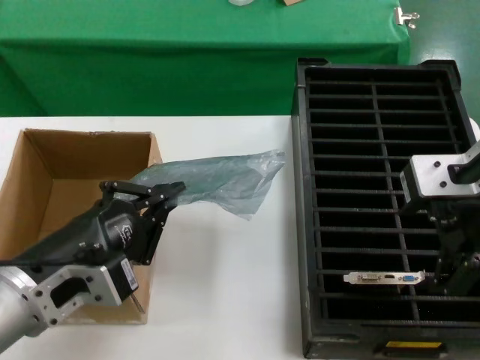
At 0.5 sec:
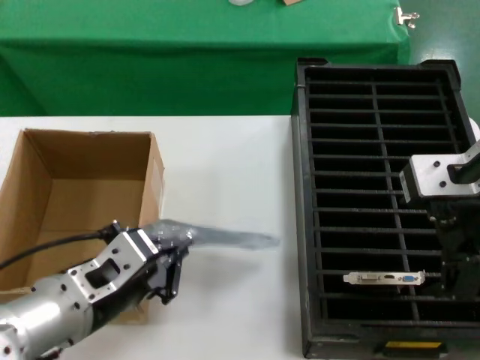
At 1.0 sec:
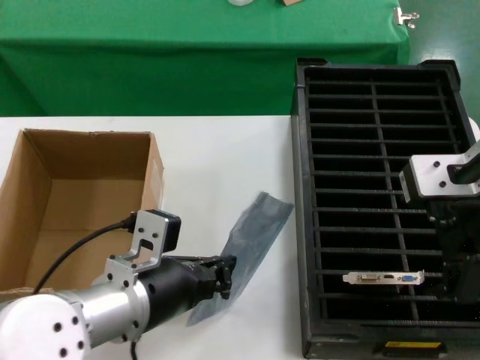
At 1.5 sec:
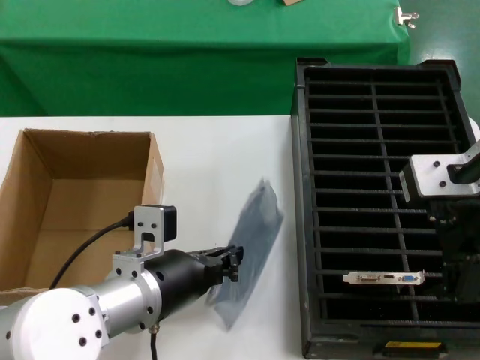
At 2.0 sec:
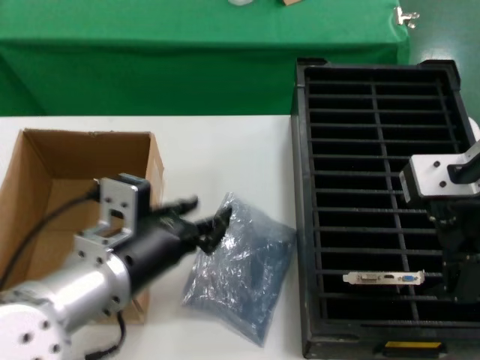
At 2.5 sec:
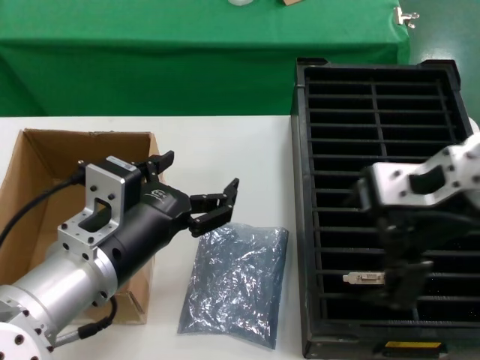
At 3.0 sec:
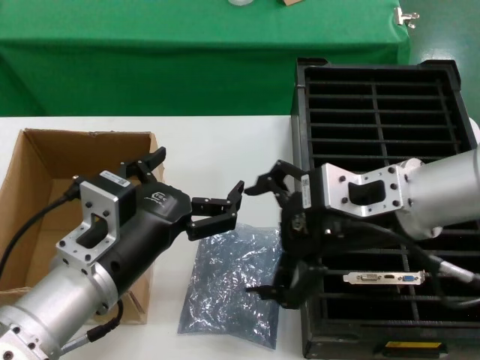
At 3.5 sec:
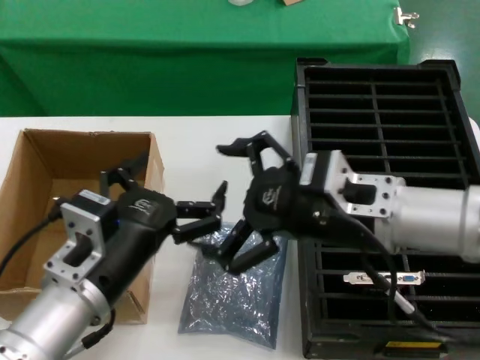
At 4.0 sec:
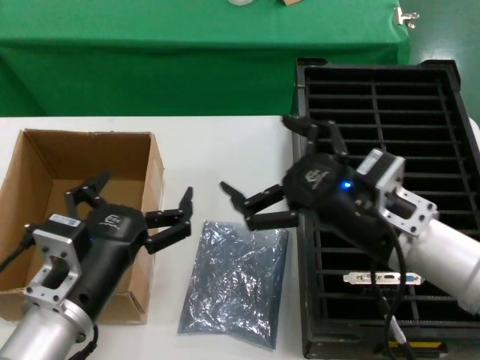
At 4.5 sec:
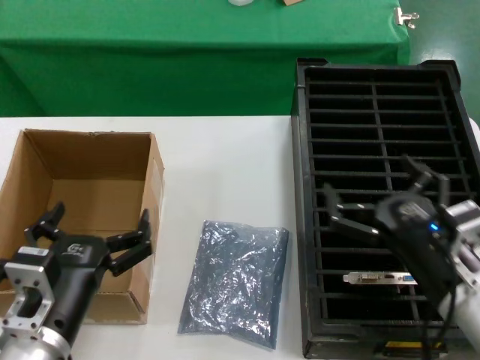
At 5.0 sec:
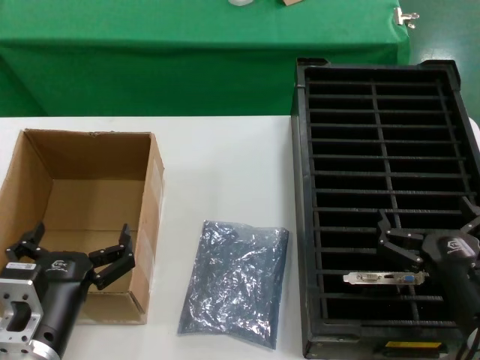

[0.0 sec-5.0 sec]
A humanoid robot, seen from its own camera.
Task of the whole recording: take out graphics card from box remove packaging put into black container.
Step, 0.0 sec to 2.0 sec: Place the down the bag.
0.0 sec to 2.5 sec: The left hand is displaced to the right by some 5 cm.
2.5 sec to 5.0 sec: The right hand moves downward, about 30 cm. The left hand travels downward by roughly 15 cm.

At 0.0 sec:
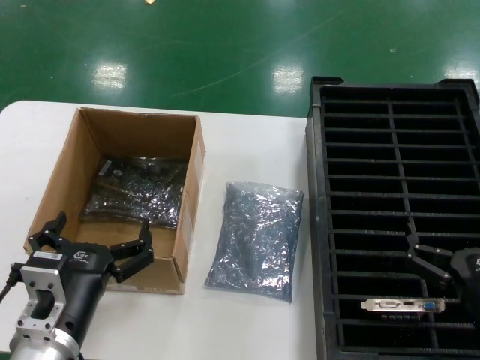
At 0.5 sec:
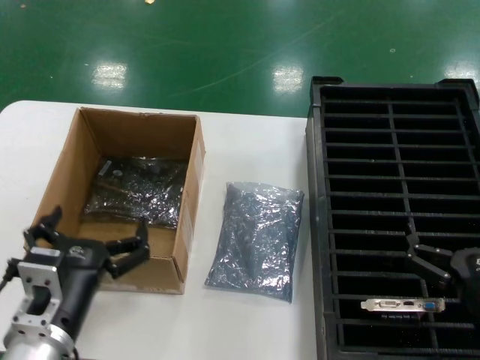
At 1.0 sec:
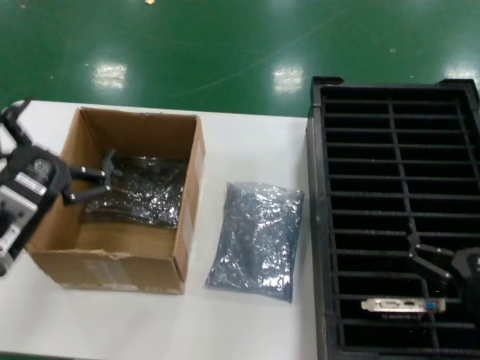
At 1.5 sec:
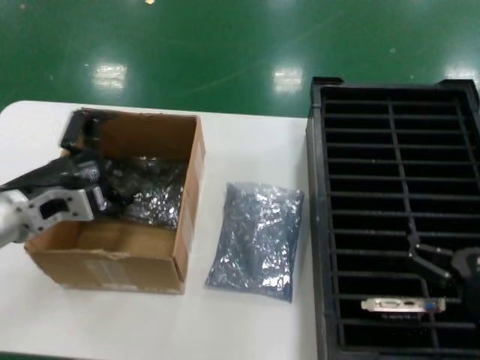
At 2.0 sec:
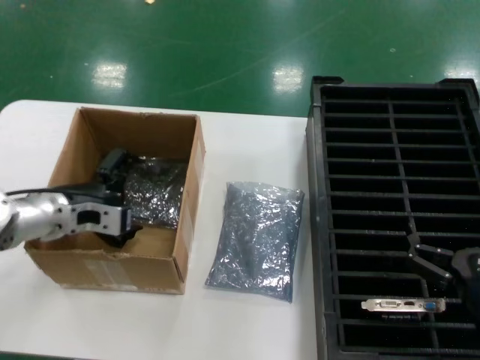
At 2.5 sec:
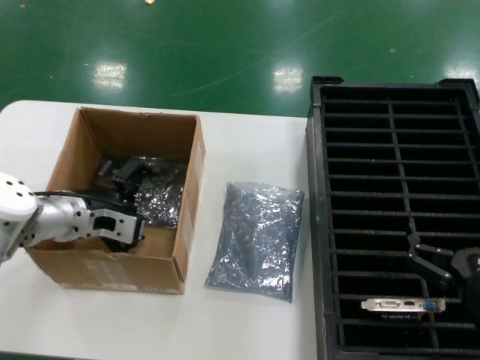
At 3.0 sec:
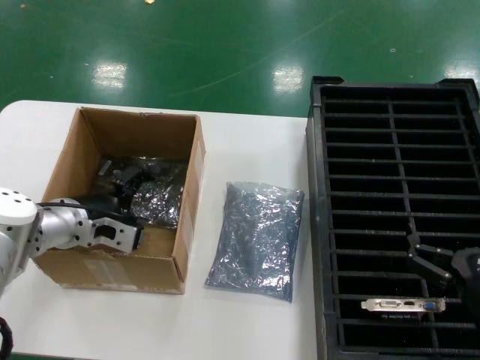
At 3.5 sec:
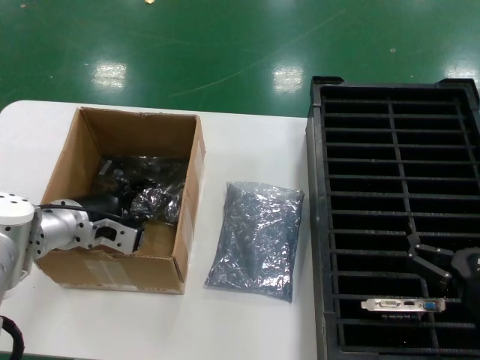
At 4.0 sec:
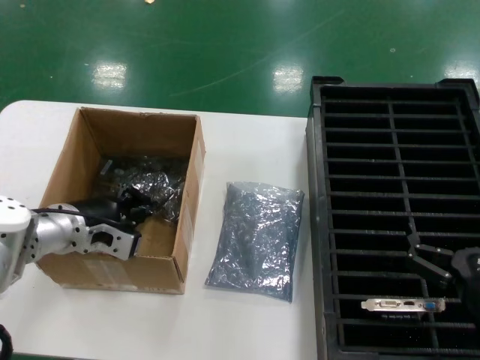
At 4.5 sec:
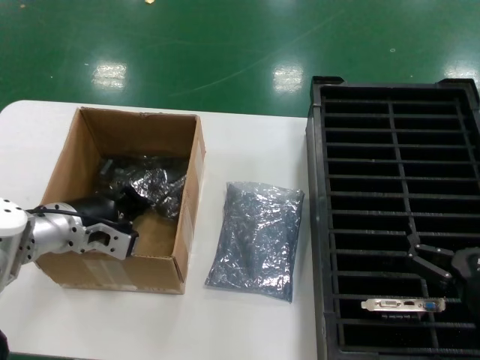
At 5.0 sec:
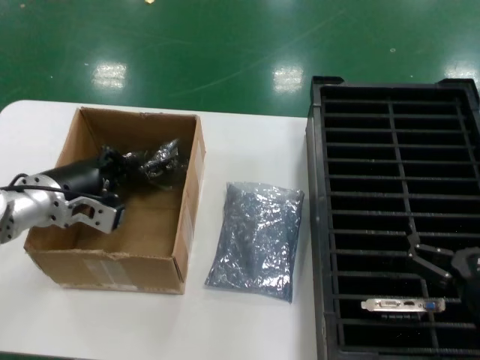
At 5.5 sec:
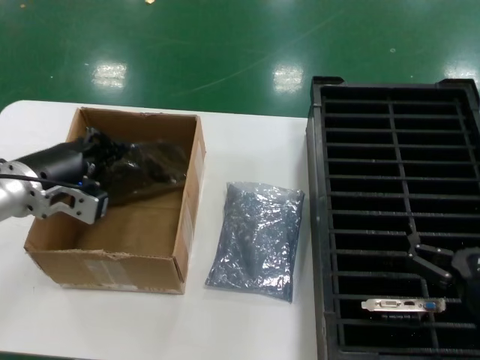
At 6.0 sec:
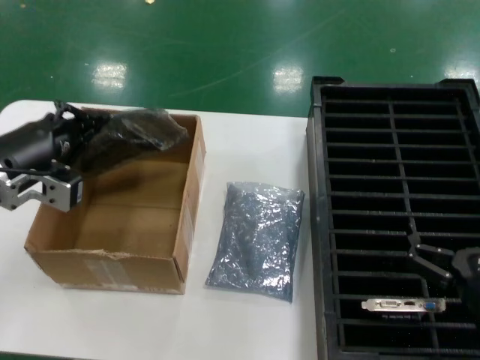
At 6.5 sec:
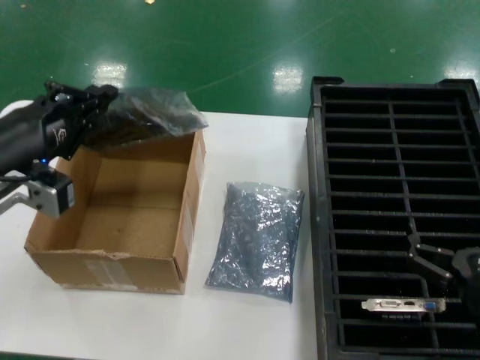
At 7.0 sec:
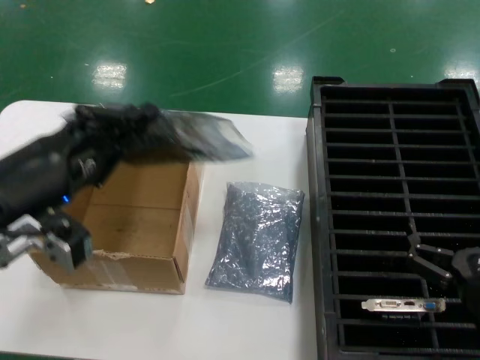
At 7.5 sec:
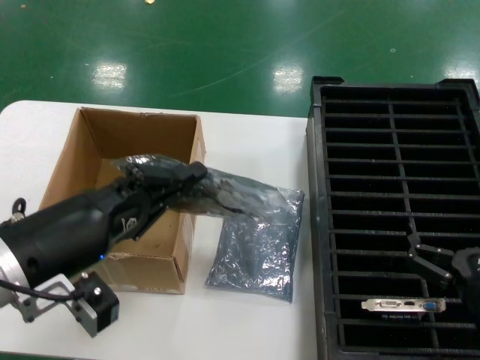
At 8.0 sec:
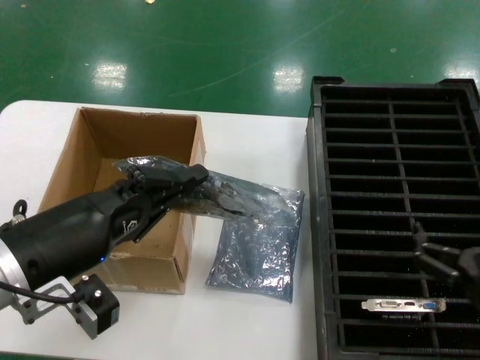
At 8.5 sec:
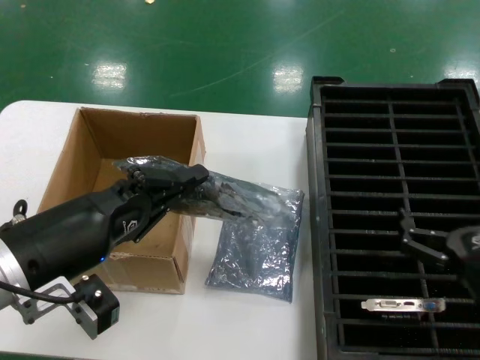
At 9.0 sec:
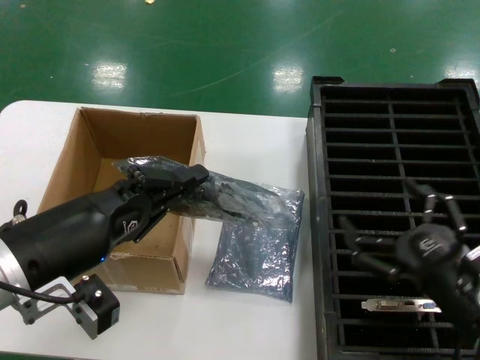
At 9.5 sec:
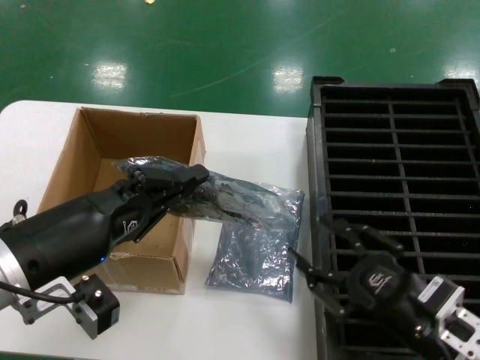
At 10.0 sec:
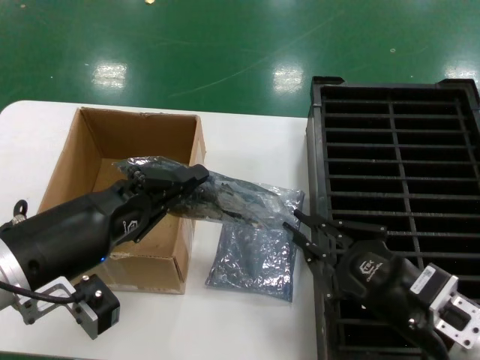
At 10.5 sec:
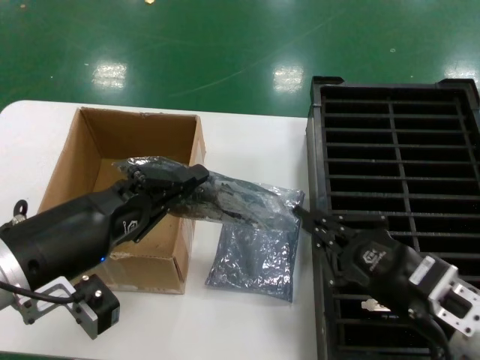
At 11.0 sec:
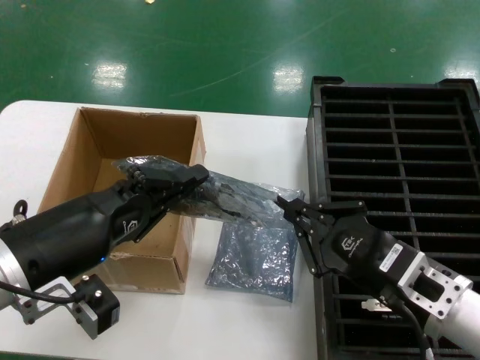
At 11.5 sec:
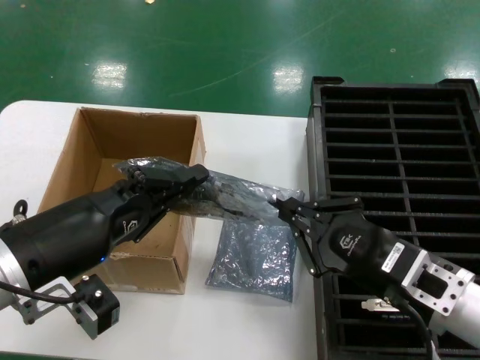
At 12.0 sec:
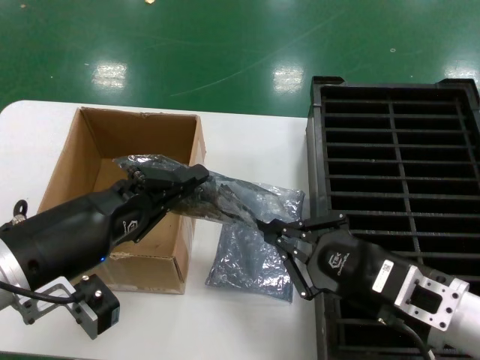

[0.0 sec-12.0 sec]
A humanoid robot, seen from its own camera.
Task of the whole recording: take out graphics card from box remove packaging put into black container.
Step, 0.0 sec to 4.0 sec: Grasp the bag.
Step, 4.5 sec to 7.5 sec: Lift the bag.
0.0 sec to 2.0 sec: The left hand is displaced forward, to the left and upward by some 25 cm.
2.0 sec to 4.0 sec: There are only small adjustments of the hands.
4.0 sec to 6.0 sec: The left hand heads upward and backward, covering about 15 cm.
6.0 sec to 8.0 sec: The left hand travels backward and to the right by approximately 15 cm.
8.0 sec to 10.0 sec: The right hand moves approximately 5 cm.
10.0 sec to 12.0 sec: The hands move only a little.

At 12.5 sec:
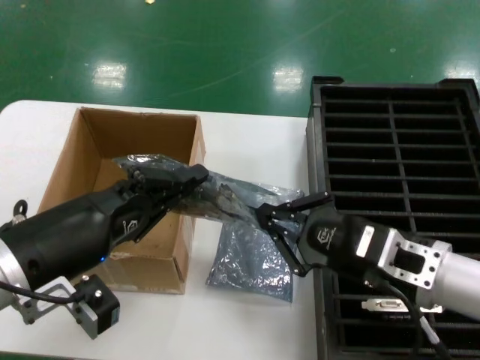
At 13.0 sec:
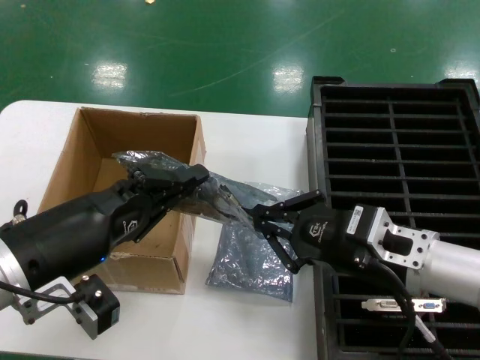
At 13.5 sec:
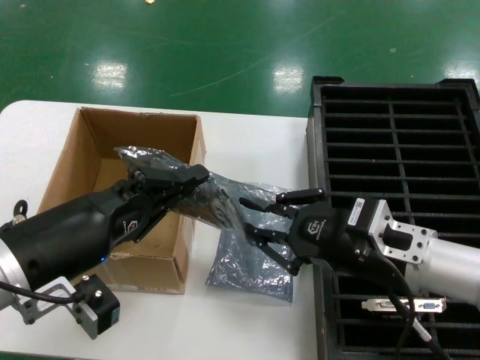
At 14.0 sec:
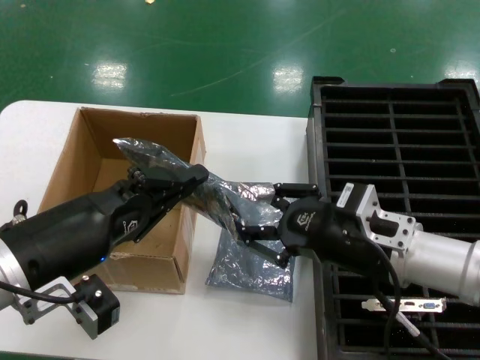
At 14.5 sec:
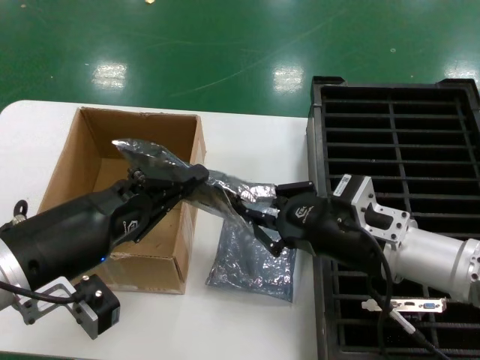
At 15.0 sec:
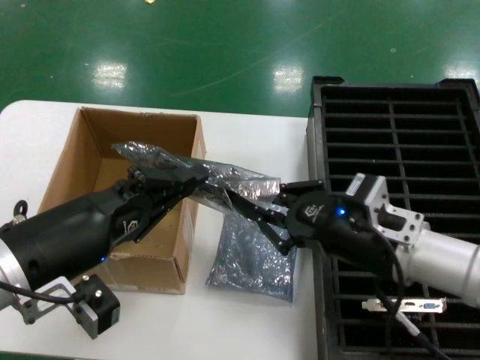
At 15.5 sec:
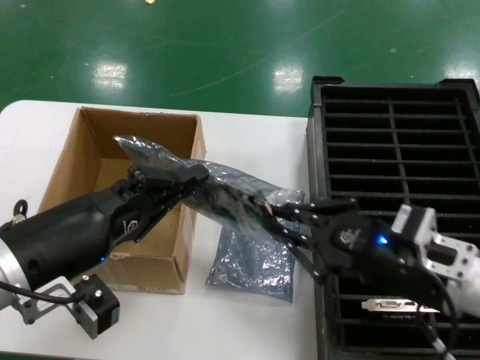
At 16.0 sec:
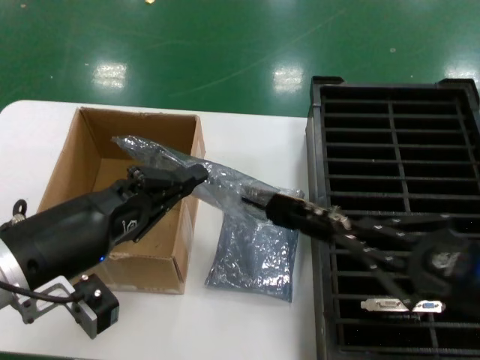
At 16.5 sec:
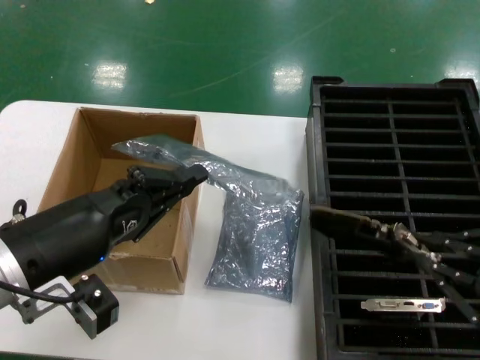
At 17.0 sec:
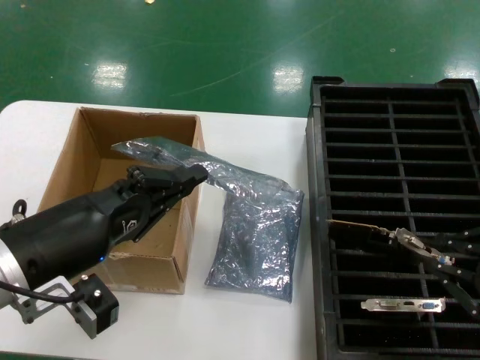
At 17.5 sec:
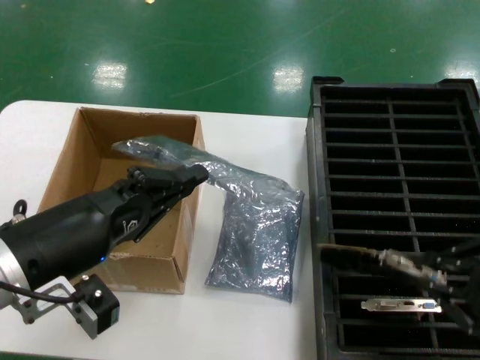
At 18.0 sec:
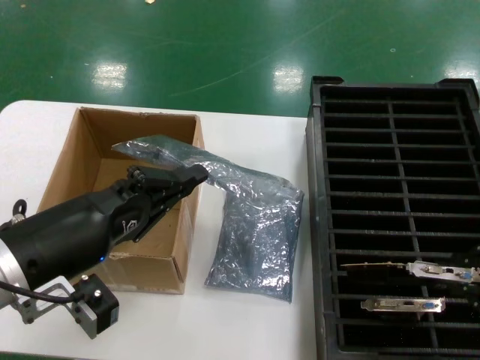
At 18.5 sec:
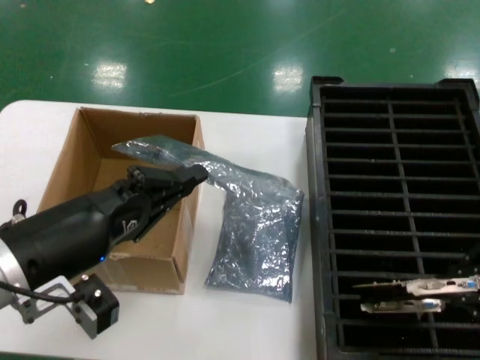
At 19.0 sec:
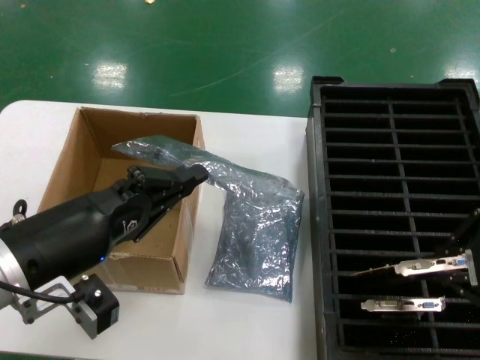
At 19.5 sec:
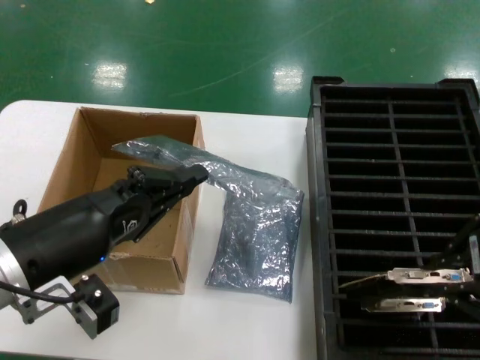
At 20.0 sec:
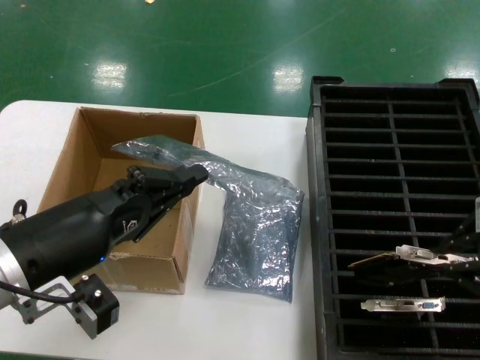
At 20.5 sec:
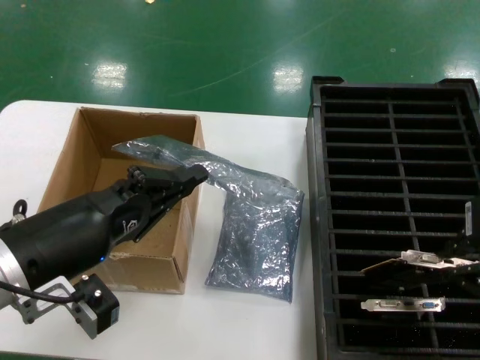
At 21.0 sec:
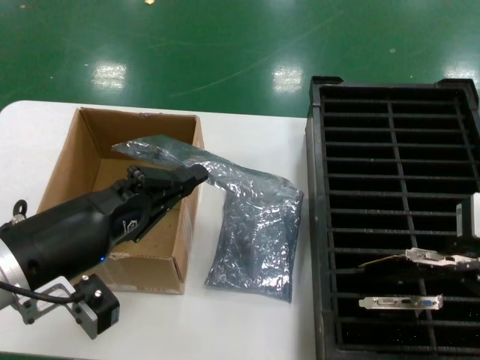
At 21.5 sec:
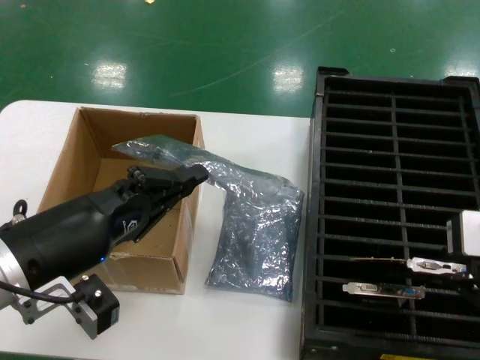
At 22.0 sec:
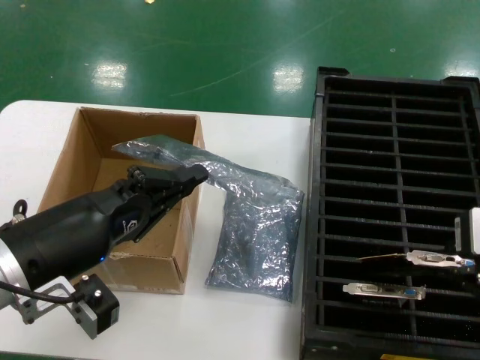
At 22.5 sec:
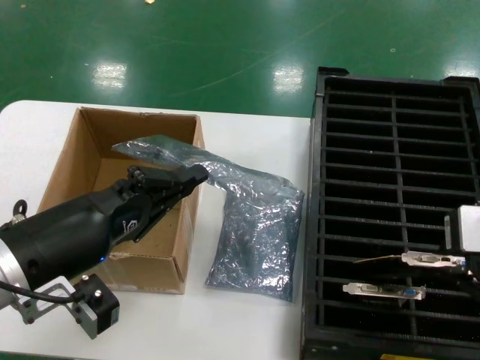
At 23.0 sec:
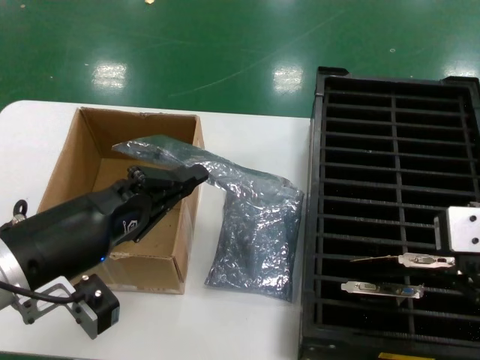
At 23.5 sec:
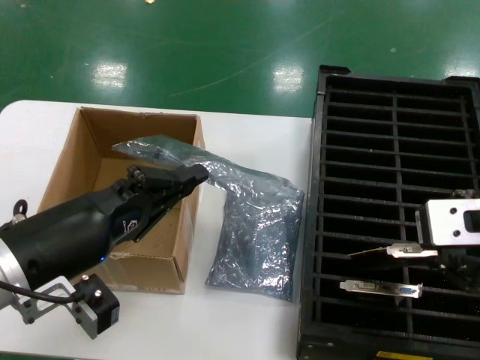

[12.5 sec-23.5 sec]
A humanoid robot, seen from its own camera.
Task of the whole recording: take out graphics card from box remove packaging put into black container.
Step, 12.5 sec to 16.0 sec: Take out the hard disk of the bag.
14.5 sec to 16.0 sec: The right hand heads to the right and backward, covering roughly 15 cm.
16.0 sec to 18.0 sec: The right hand goes approximately 10 cm upward.
18.0 sec to 20.0 sec: The right hand moves to the left, about 5 cm.
20.0 sec to 23.5 sec: The hands make only small movements.
